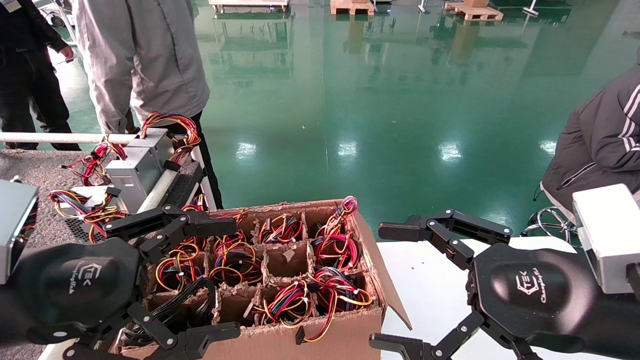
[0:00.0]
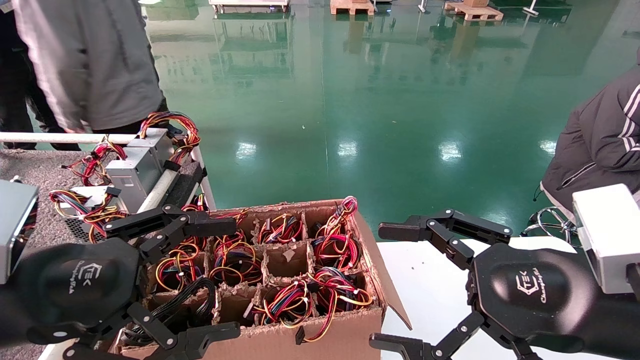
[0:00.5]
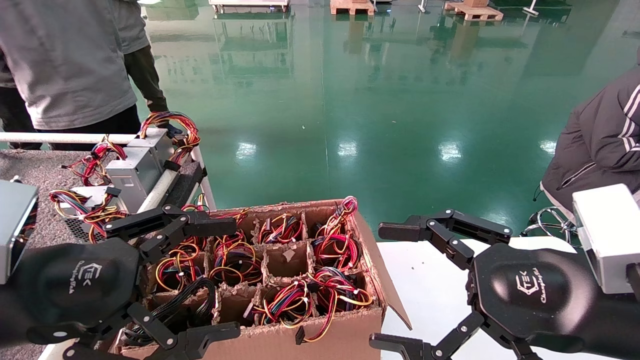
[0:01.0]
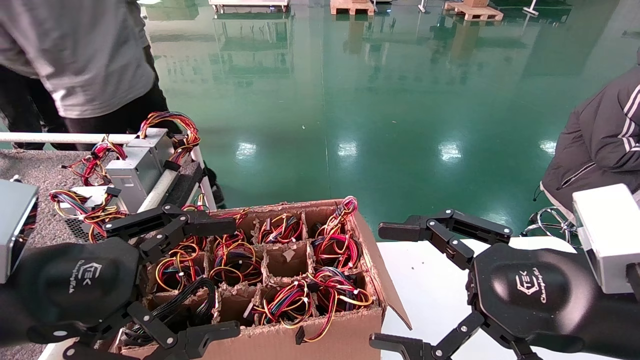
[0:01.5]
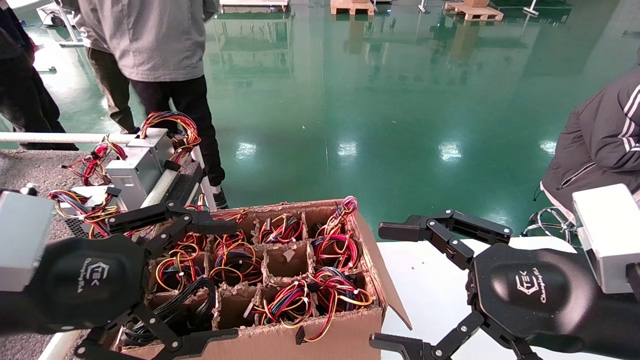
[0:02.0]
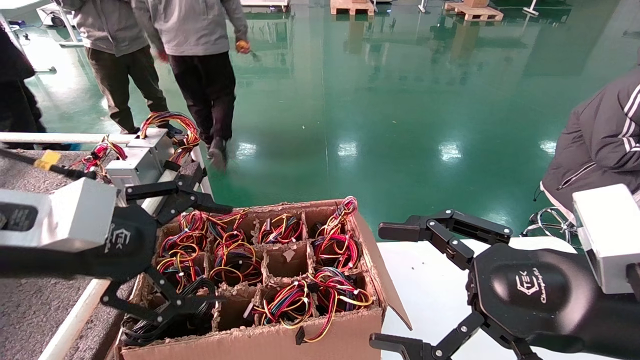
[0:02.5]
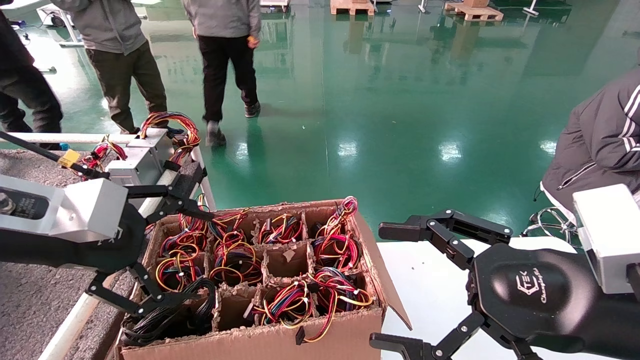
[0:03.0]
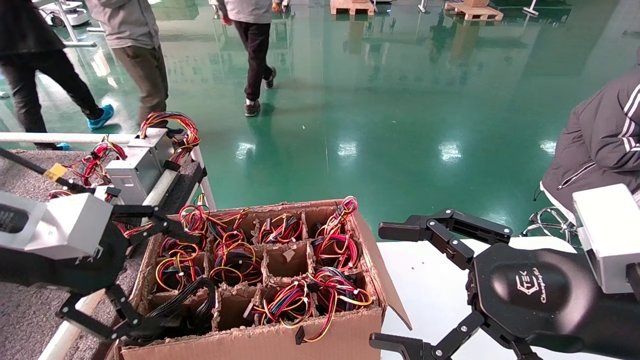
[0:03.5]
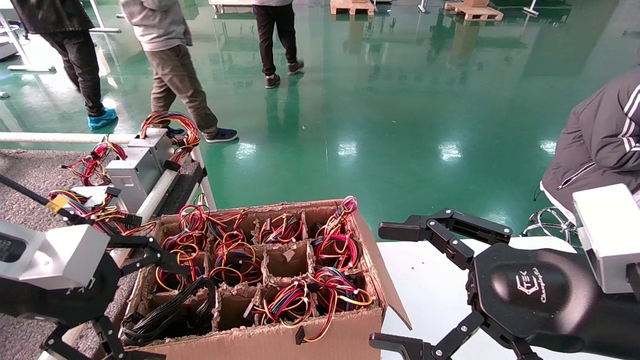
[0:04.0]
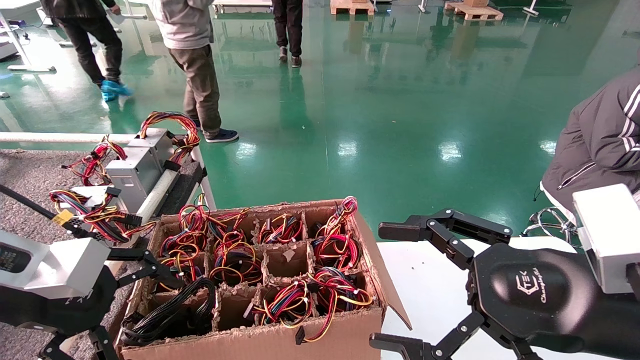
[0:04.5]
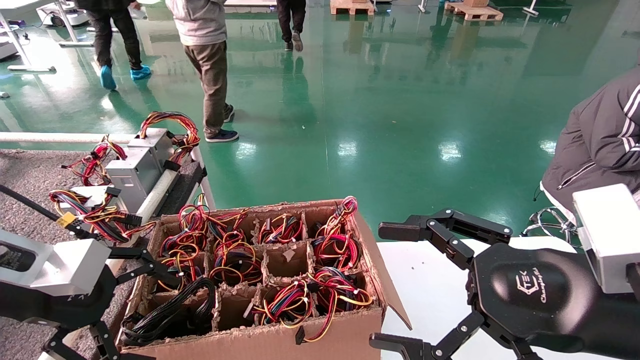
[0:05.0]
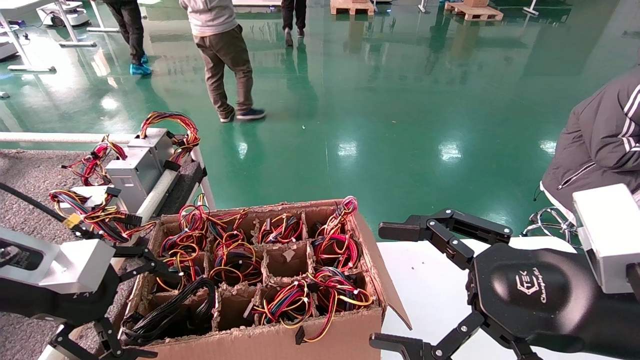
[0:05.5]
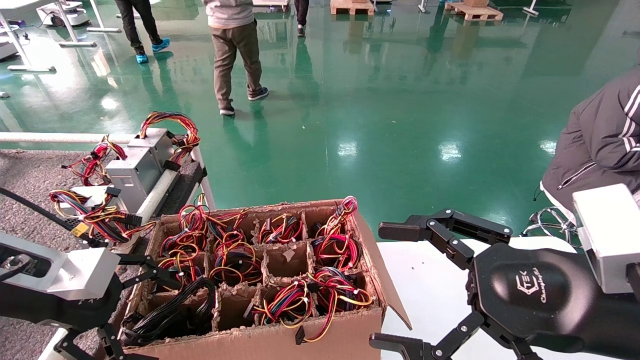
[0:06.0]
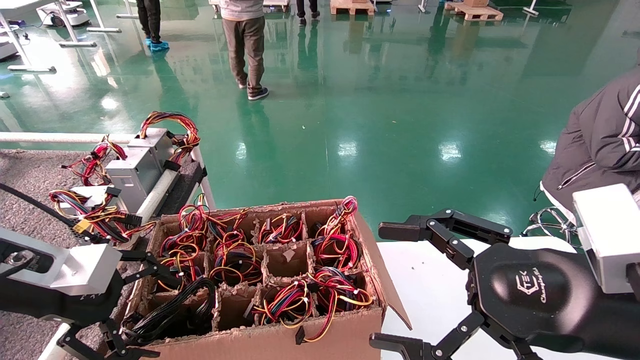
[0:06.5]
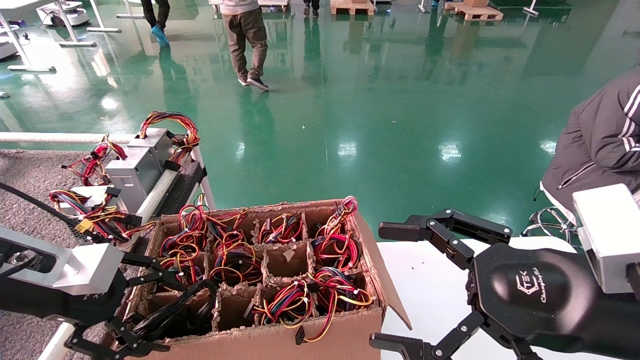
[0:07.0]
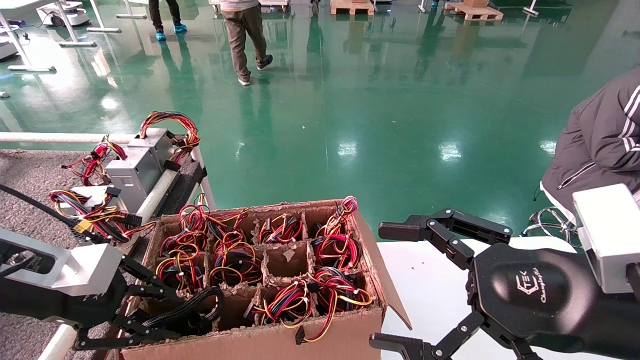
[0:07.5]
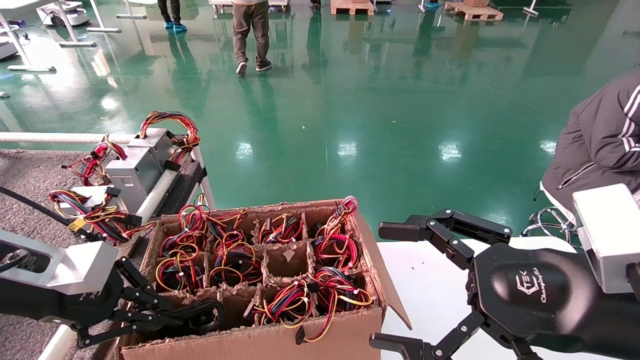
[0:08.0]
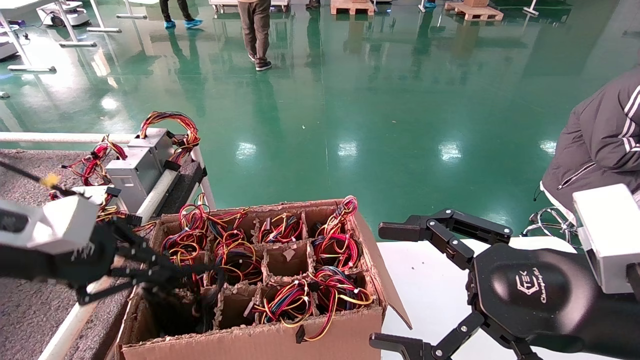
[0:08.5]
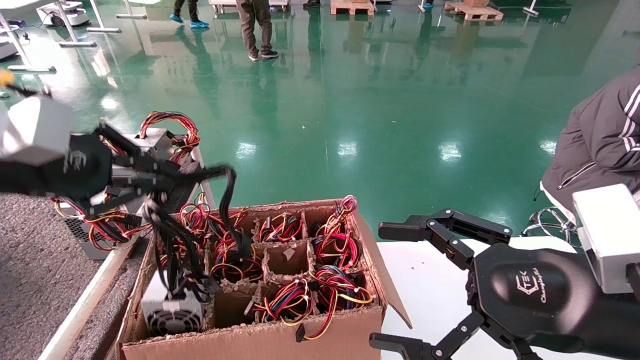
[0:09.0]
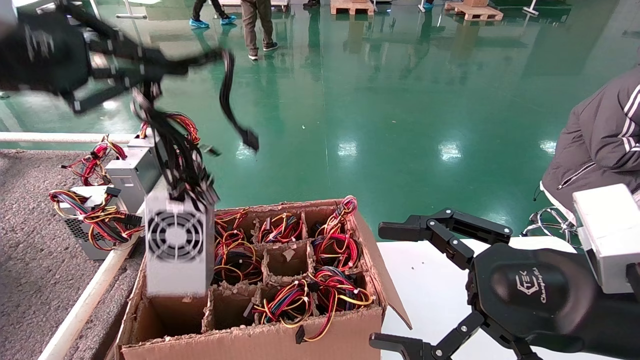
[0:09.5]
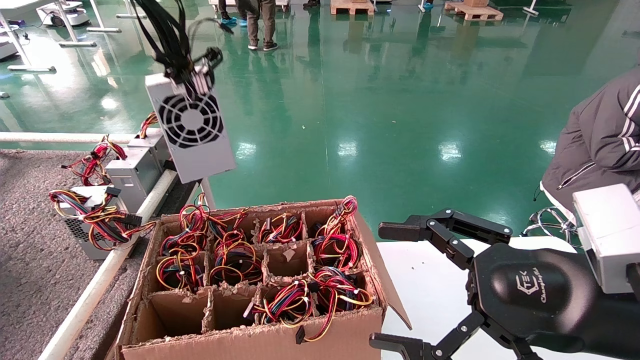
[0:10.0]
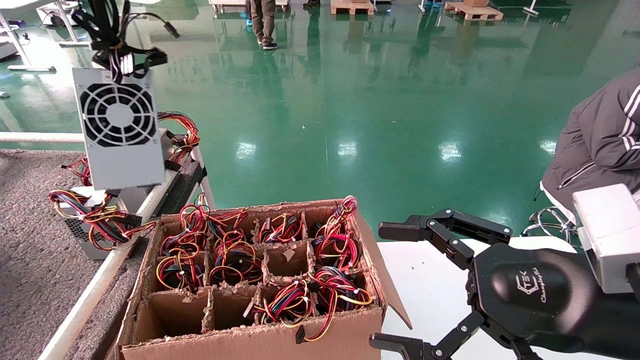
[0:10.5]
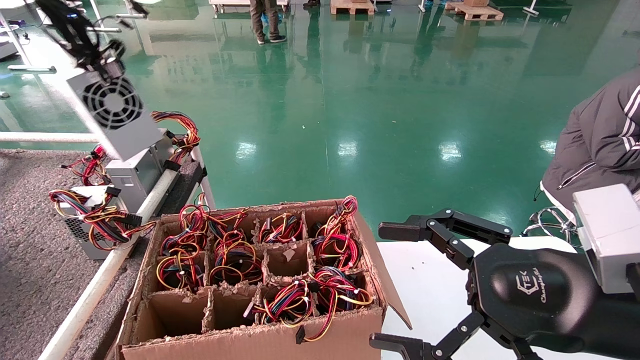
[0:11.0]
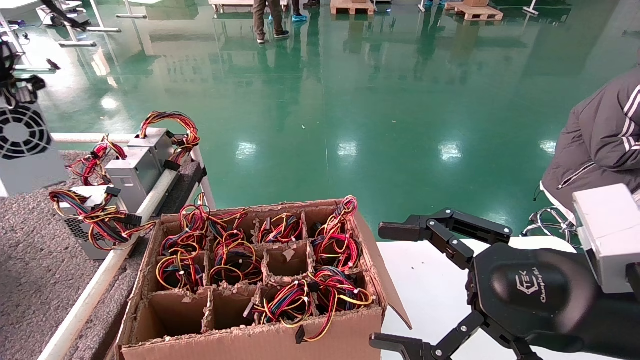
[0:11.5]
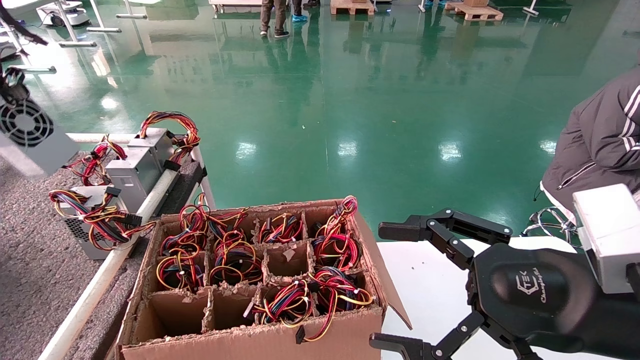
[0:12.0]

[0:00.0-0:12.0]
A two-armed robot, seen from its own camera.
Step, 0:02.5 to 0:08.0: Grab and lift the power supply from the large box.
0:00.0 to 0:02.0: The grippers make only small movements.
0:02.0 to 0:04.0: The left gripper ends up some 5 cm from where it was.
0:04.0 to 0:06.0: The left gripper shifts by about 5 cm.
0:06.0 to 0:08.0: The left gripper closes its fingers.
0:08.0 to 0:10.0: The left gripper is displaced upward by about 30 cm.
0:10.0 to 0:12.0: The left gripper heads to the left, covering approximately 20 cm.

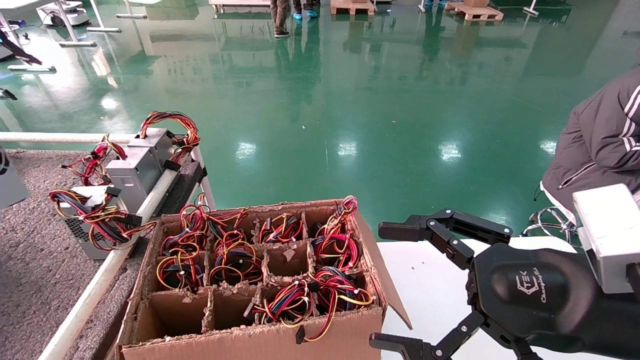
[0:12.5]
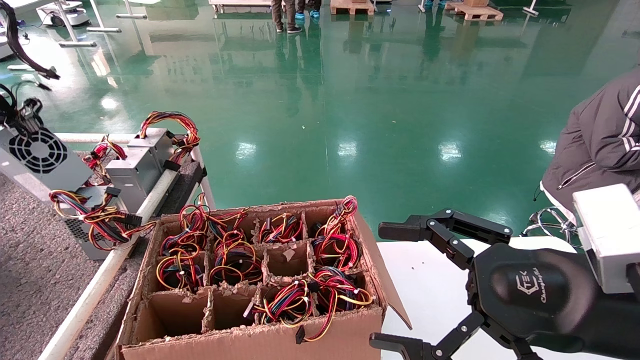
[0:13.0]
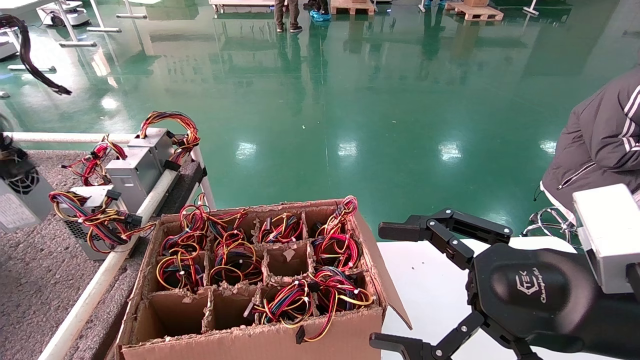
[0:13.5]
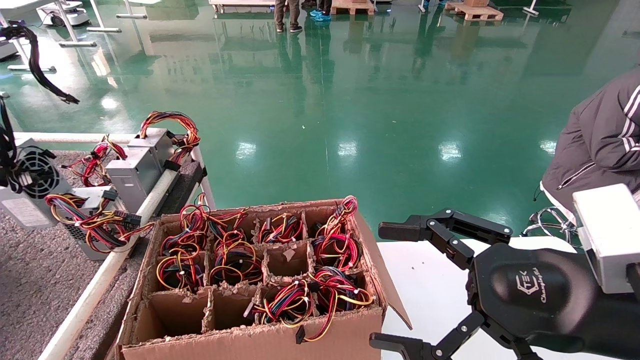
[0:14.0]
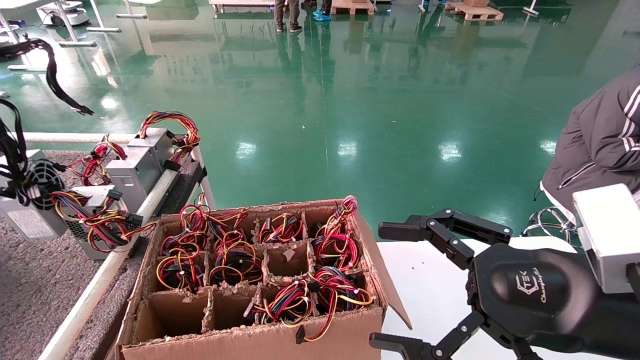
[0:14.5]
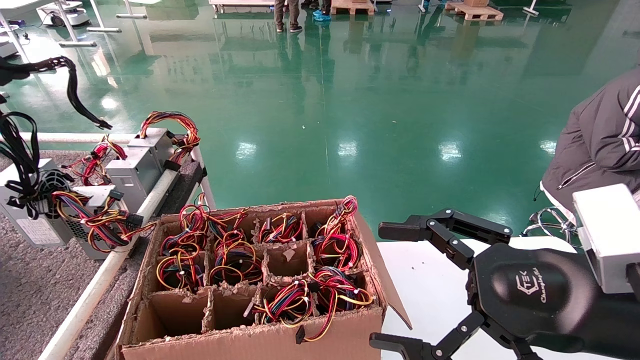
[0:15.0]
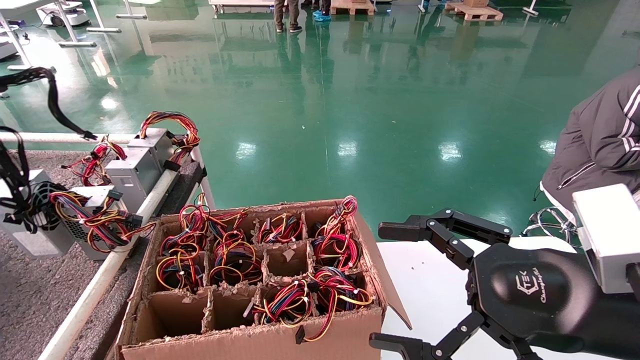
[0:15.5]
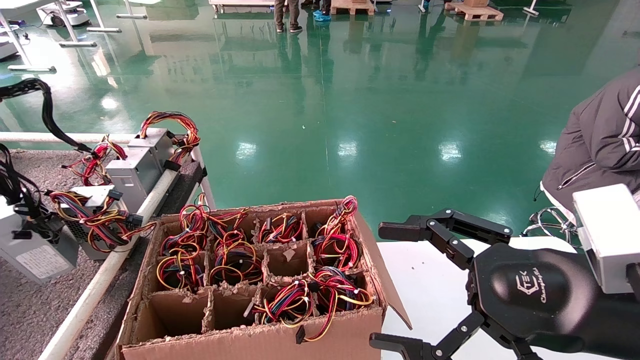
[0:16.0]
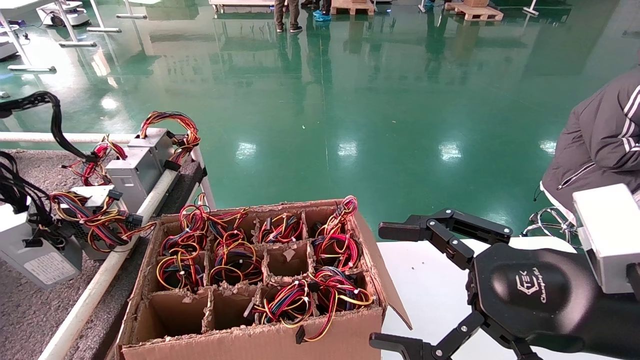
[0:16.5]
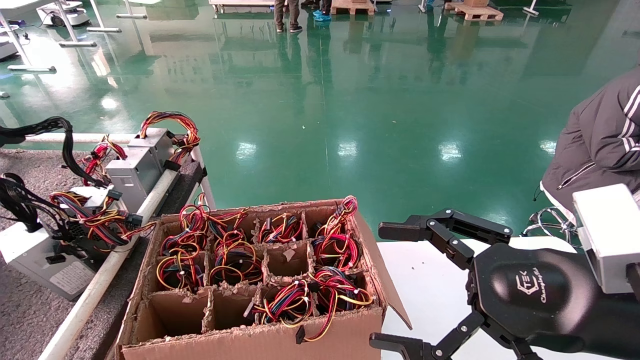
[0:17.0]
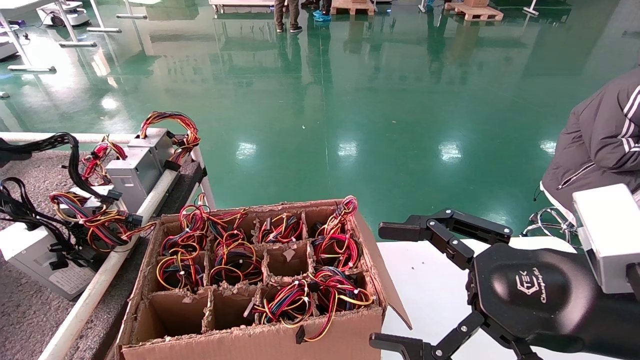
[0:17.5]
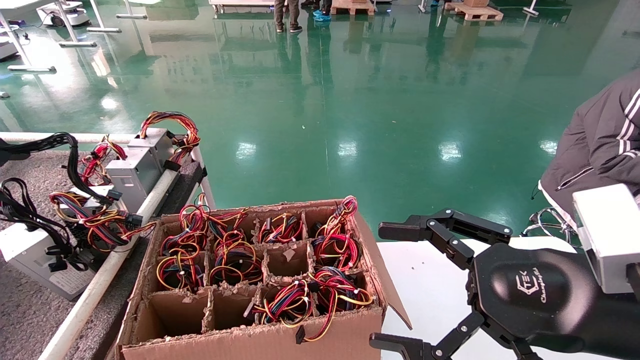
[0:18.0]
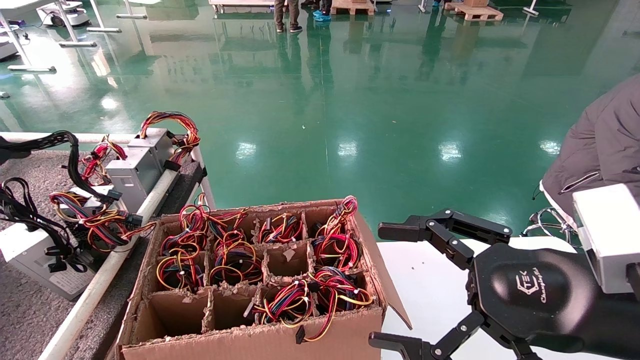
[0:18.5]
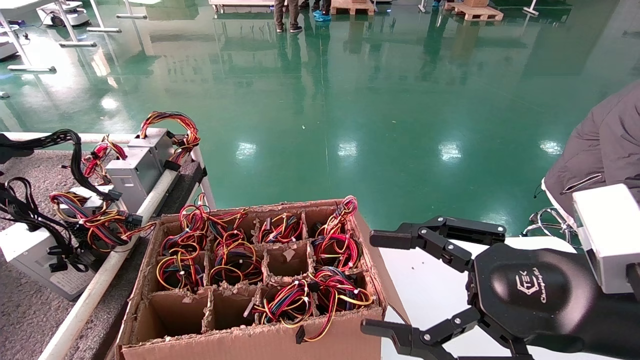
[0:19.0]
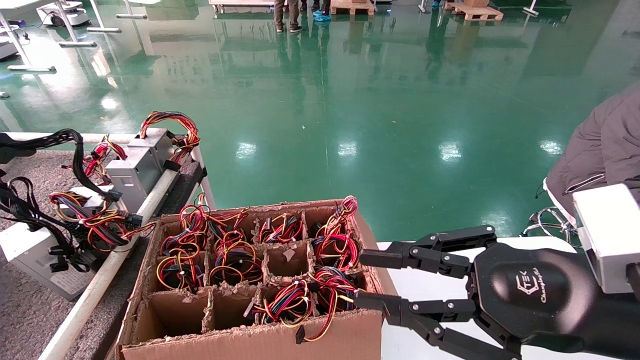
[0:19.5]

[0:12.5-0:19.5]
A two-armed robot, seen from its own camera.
Step, 0:12.5 to 0:19.5: Place the power supply on the operating table.
0:12.5 to 0:14.5: The left gripper shifts by approximately 5 cm.
0:14.5 to 0:16.0: The grippers make only small movements.
0:16.0 to 0:17.5: The left gripper ends up some 5 cm from where it was.
0:17.5 to 0:19.5: The right gripper closes up.
